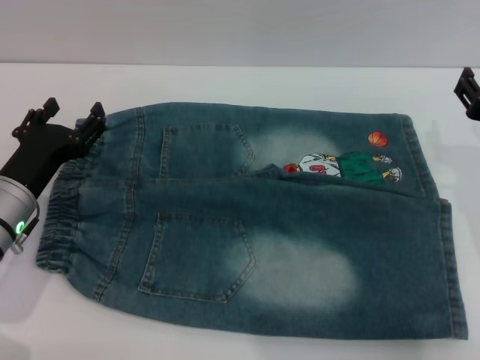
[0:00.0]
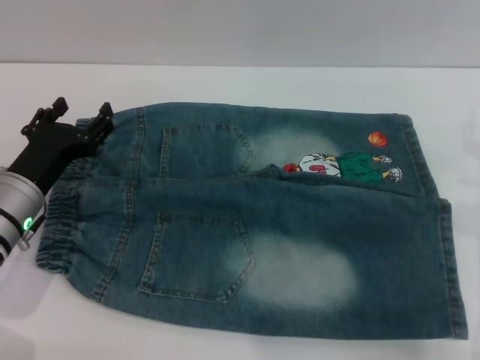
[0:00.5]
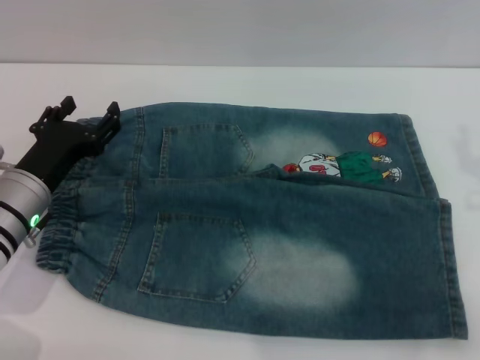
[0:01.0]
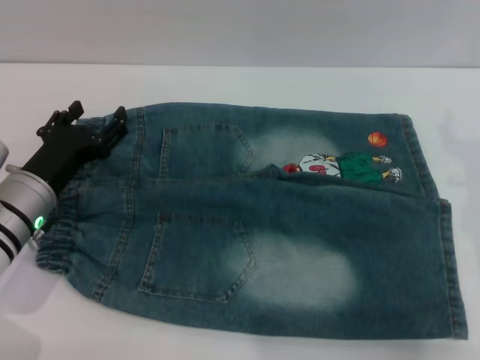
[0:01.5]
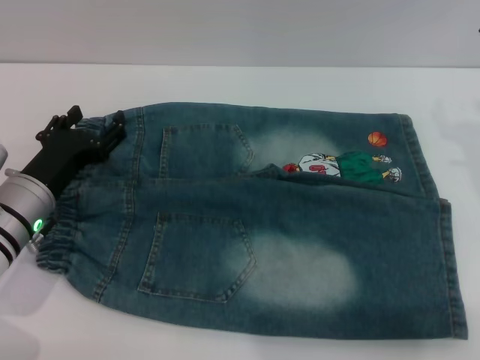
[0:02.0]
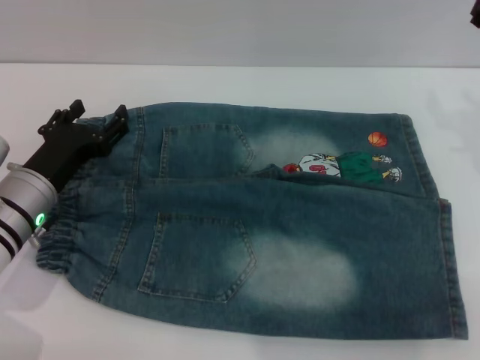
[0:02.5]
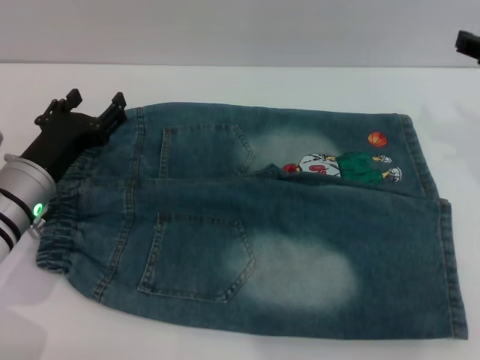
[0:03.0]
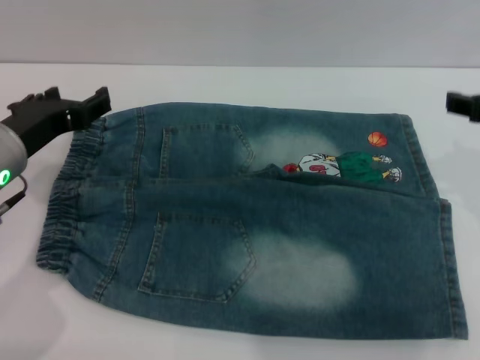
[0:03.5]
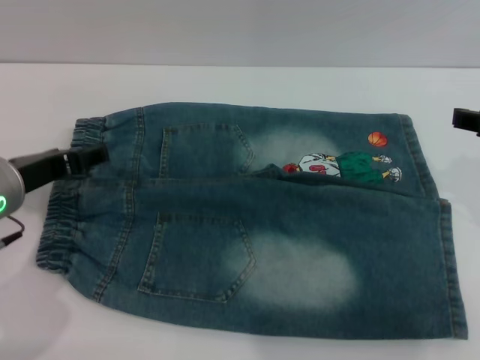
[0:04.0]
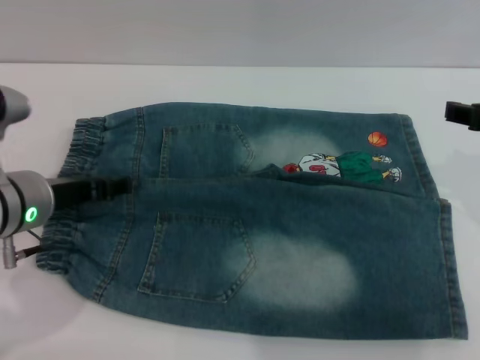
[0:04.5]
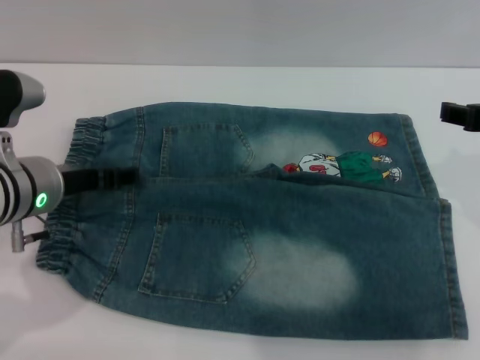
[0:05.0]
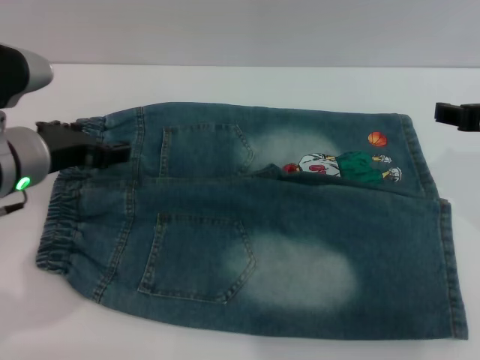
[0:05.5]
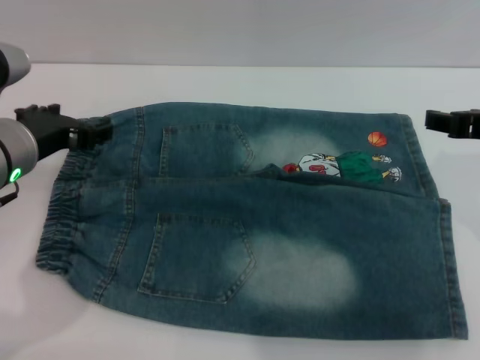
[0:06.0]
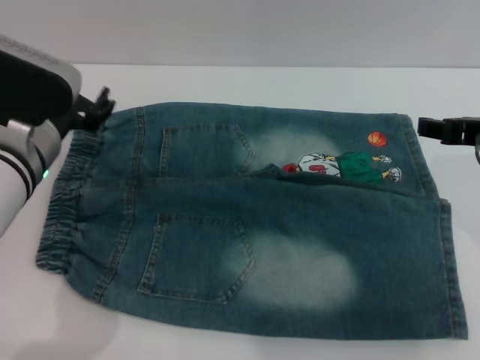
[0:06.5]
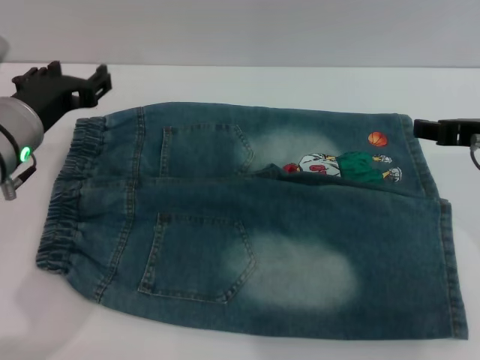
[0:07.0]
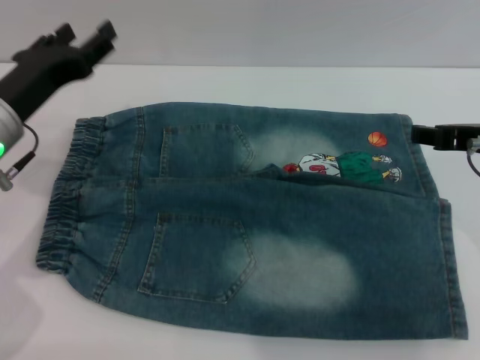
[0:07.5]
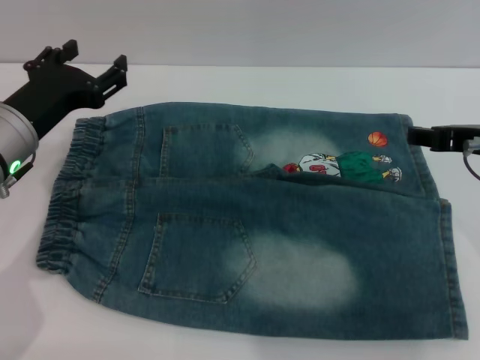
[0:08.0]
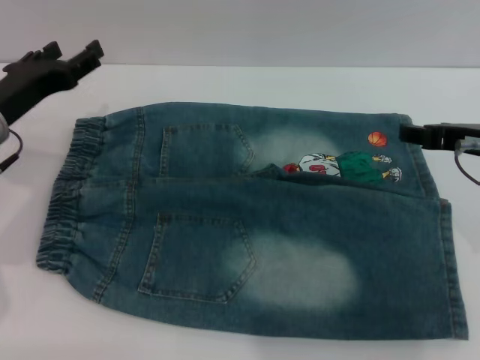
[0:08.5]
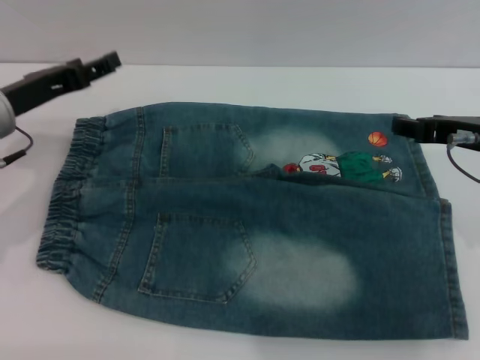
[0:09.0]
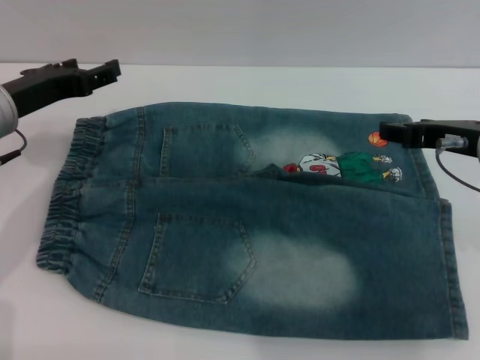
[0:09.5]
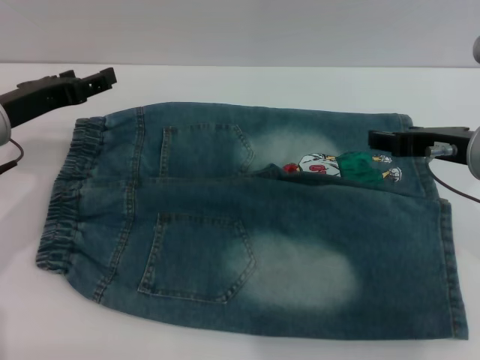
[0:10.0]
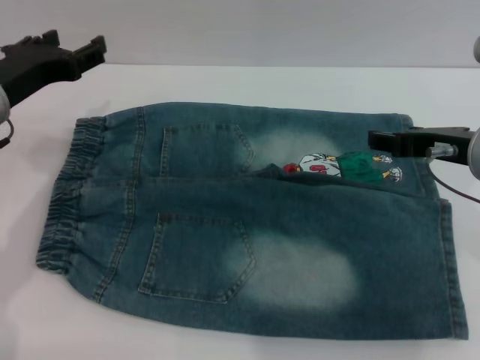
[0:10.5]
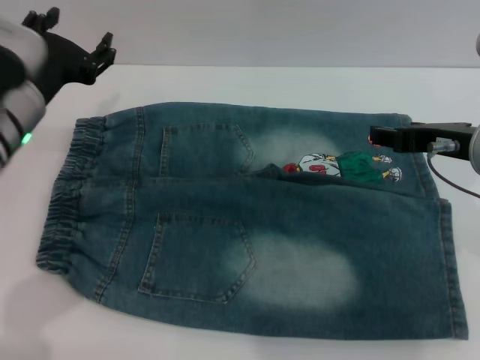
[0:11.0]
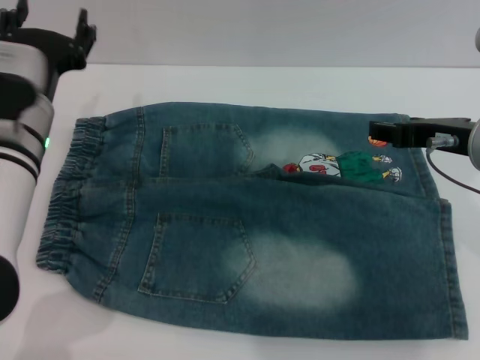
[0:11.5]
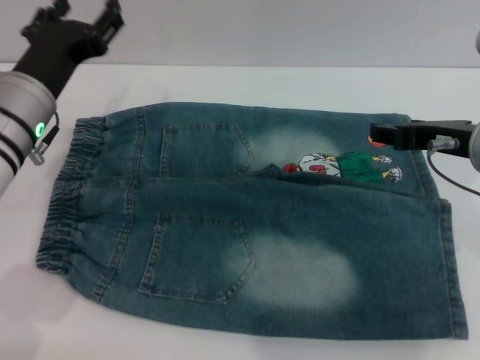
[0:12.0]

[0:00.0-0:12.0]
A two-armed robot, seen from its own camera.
0:02.0 to 0:04.0: The left gripper goes approximately 10 cm upward.
0:10.0 to 0:12.0: The left gripper goes about 5 cm to the right.

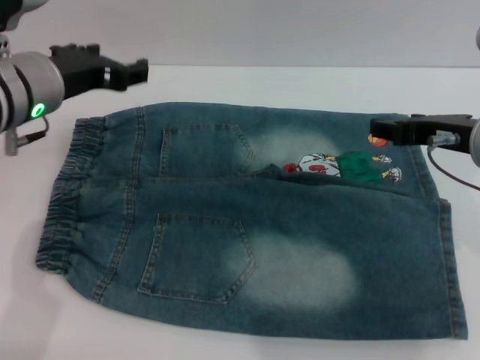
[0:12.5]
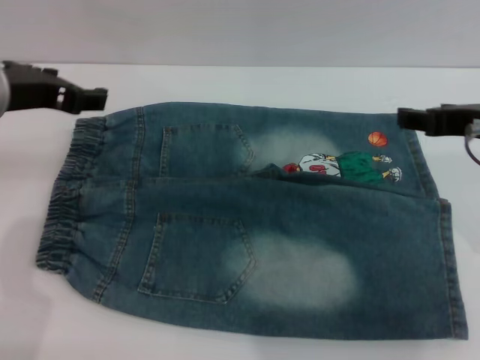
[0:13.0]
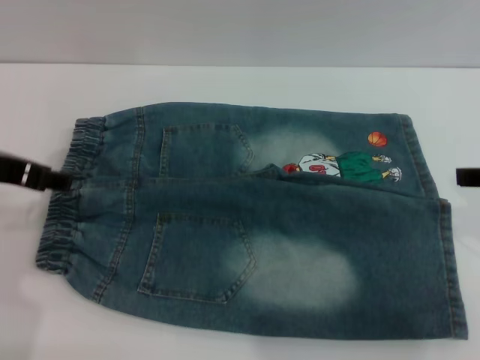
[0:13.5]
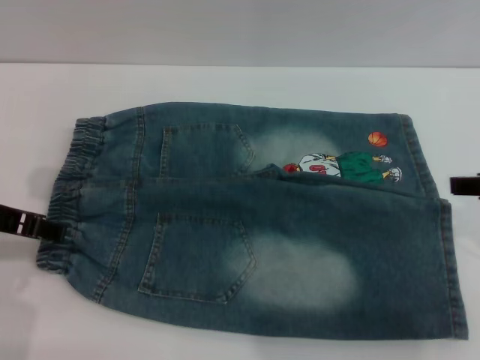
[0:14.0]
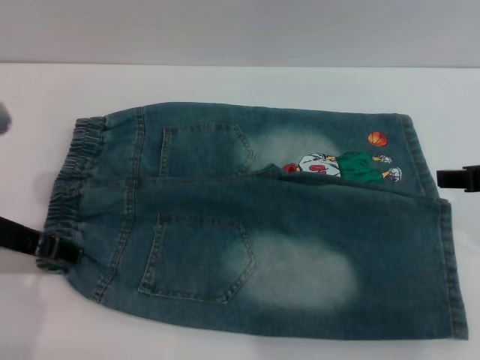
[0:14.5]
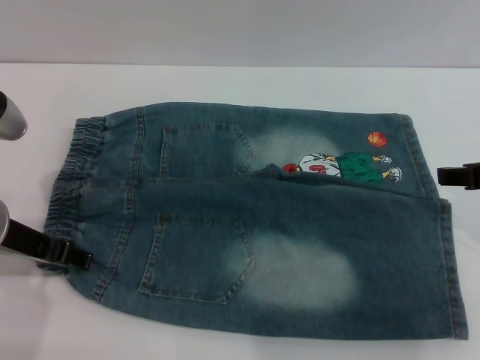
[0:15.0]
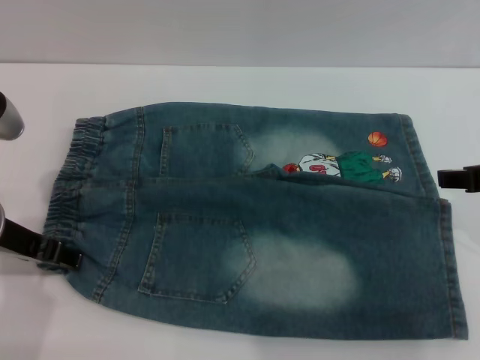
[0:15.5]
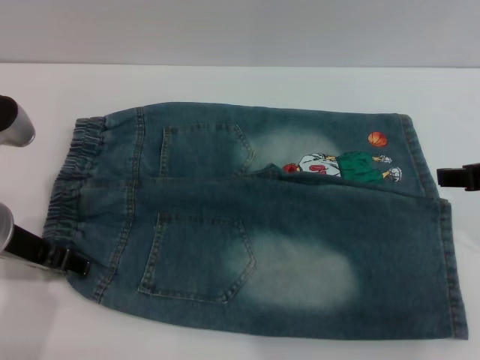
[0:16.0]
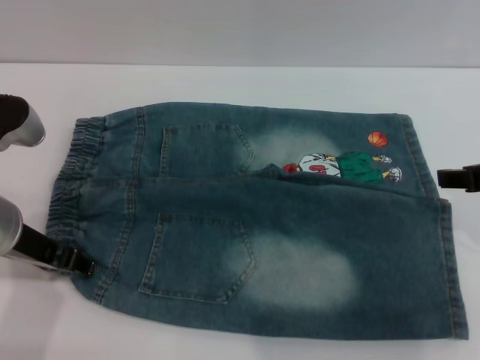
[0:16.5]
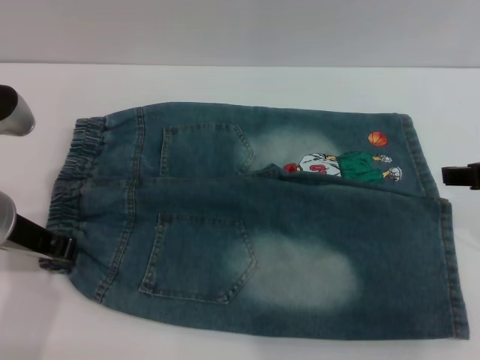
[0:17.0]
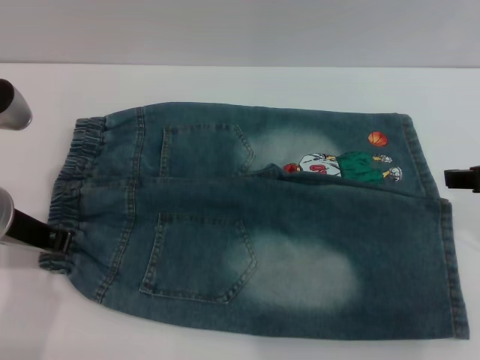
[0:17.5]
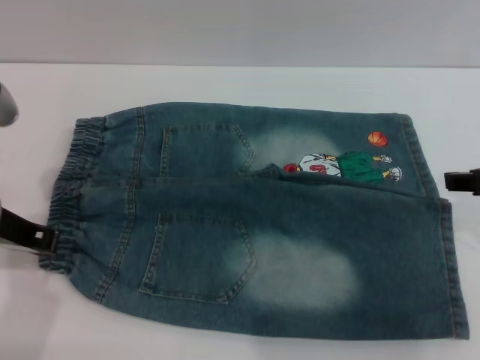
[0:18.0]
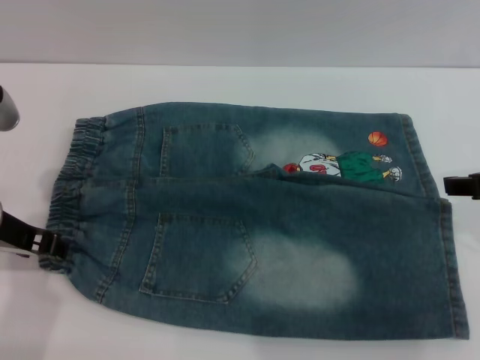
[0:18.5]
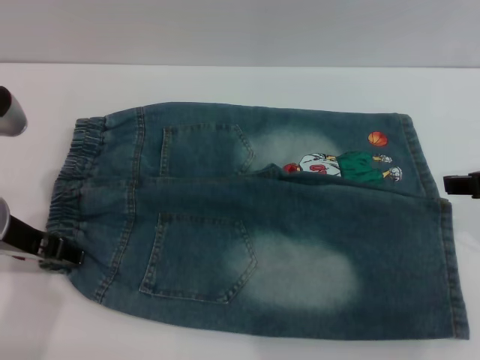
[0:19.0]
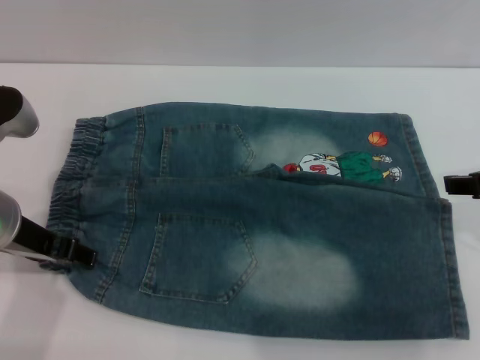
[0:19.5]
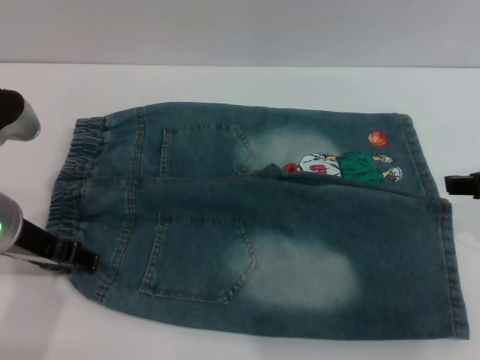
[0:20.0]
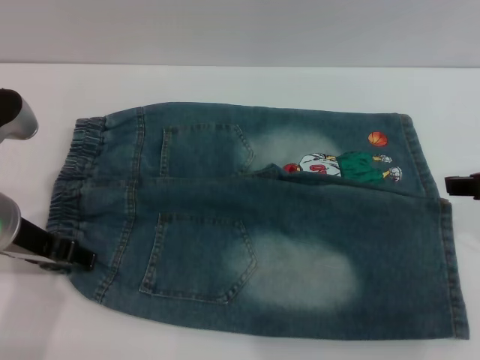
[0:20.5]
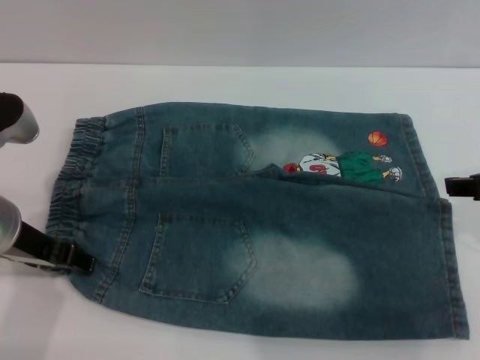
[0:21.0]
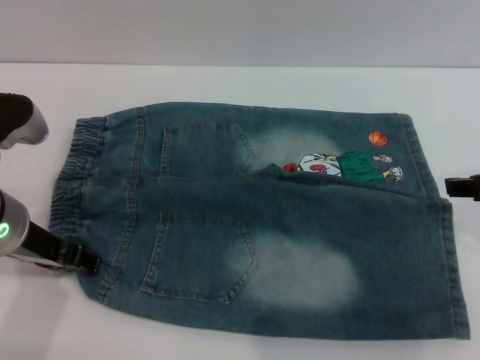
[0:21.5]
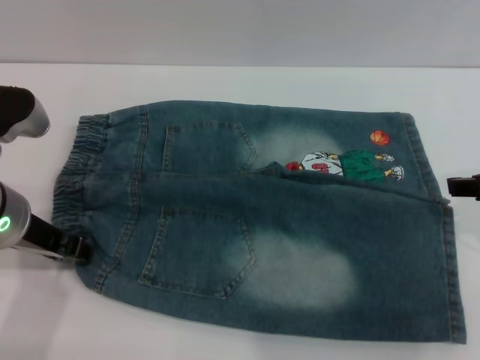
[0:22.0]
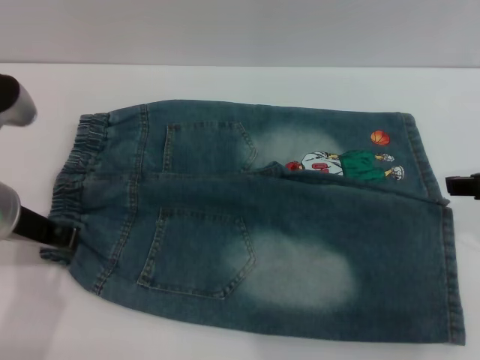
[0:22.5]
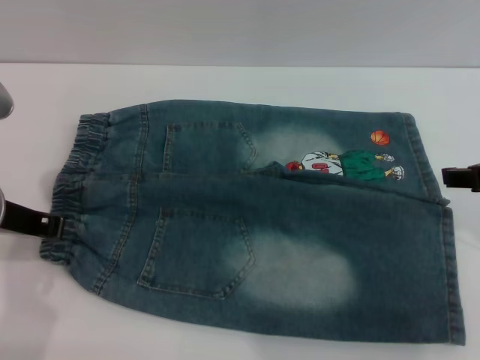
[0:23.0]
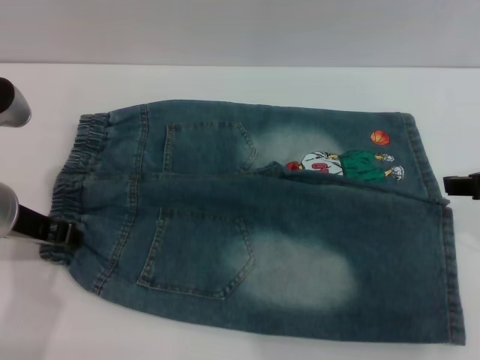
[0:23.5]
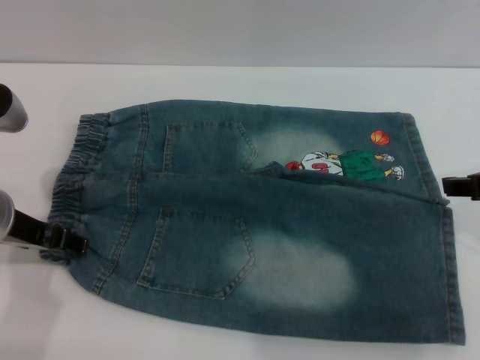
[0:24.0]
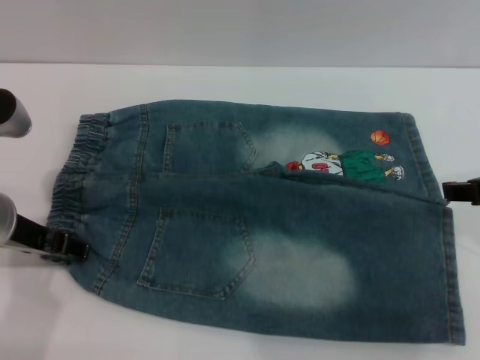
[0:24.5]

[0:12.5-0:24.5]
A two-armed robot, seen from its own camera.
0:12.5 to 0:14.5: The left gripper is displaced backward by some 5 cm. The right gripper moves about 5 cm.
0:14.5 to 0:16.5: There are only small adjustments of the grippers.
0:16.5 to 0:18.5: The left gripper closes its fingers.
0:18.5 to 0:20.5: The left gripper opens up.
0:20.5 to 0:22.5: The left gripper closes up.
0:22.5 to 0:24.5: The left gripper opens its fingers.

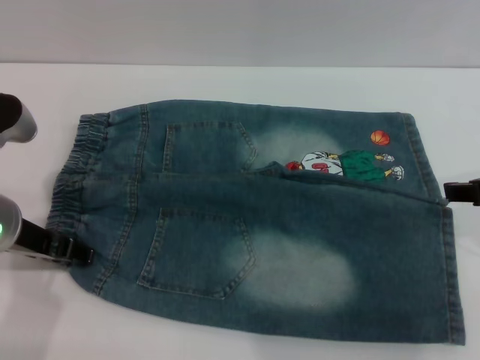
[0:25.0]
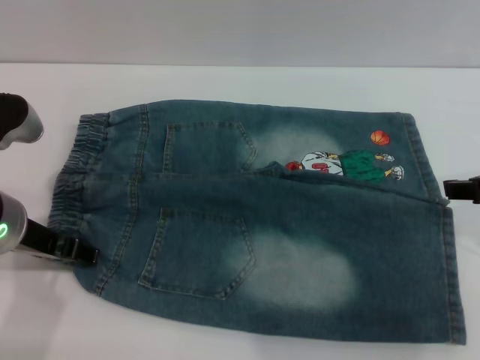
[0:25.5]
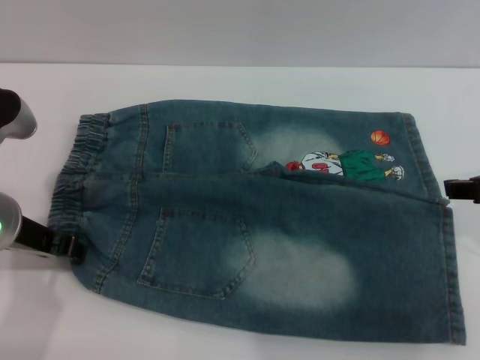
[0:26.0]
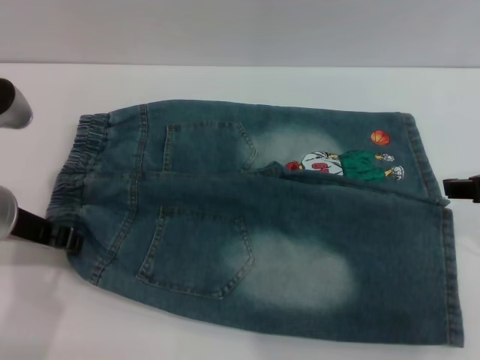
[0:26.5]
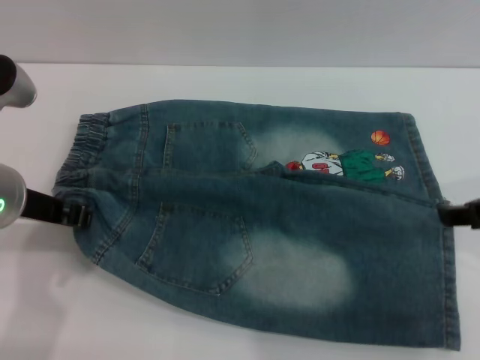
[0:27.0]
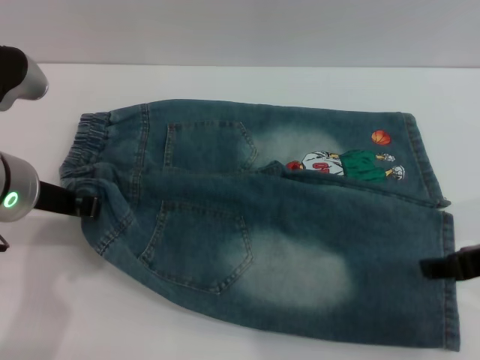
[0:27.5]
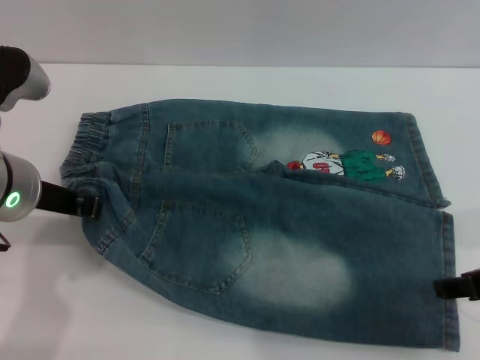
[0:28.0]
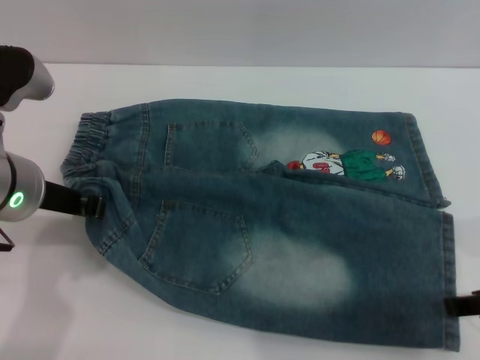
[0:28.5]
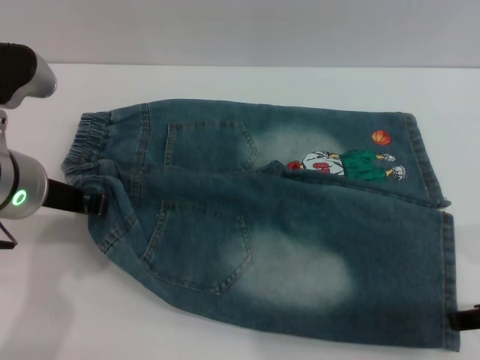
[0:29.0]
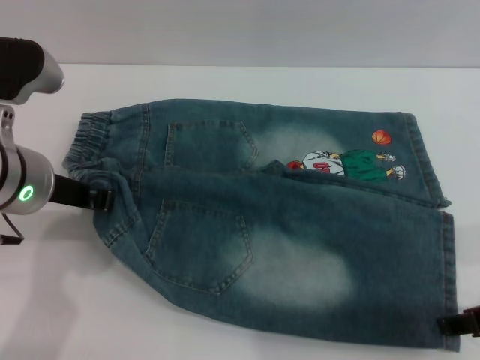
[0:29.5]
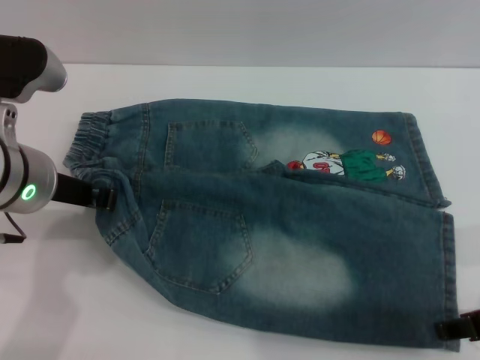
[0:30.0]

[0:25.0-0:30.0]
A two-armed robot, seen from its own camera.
0:25.0 to 0:27.5: The left gripper closes its fingers.
0:27.5 to 0:30.0: There are only small adjustments of the grippers.
